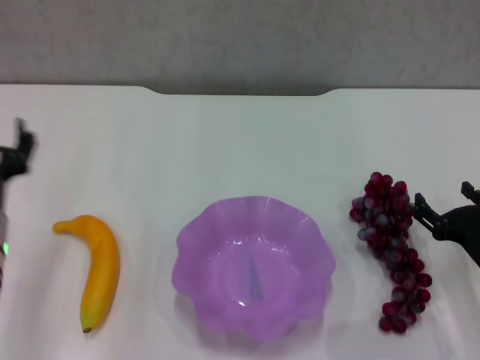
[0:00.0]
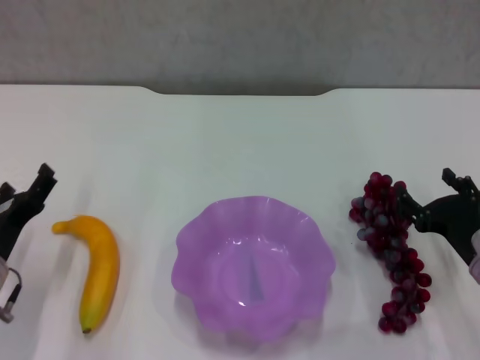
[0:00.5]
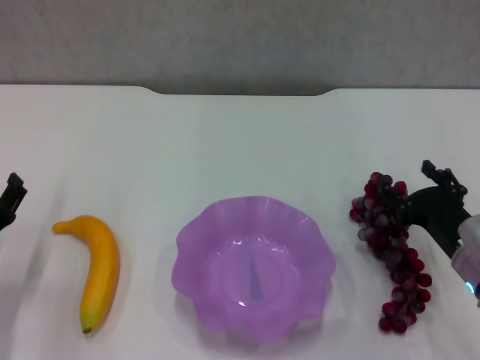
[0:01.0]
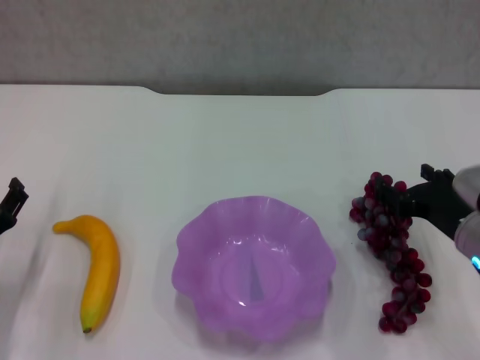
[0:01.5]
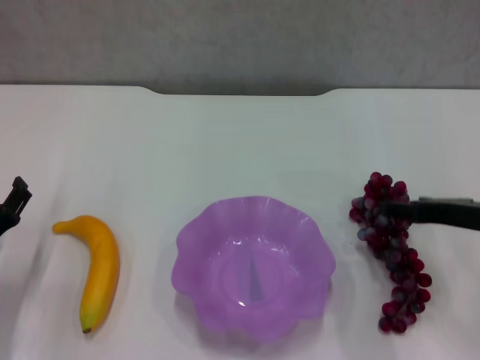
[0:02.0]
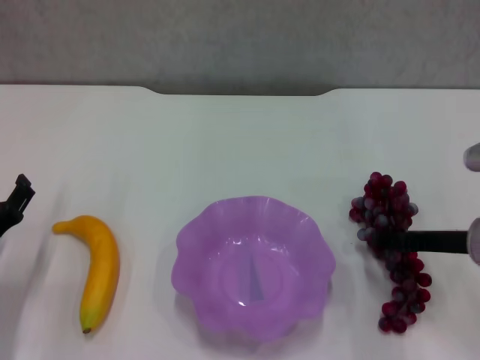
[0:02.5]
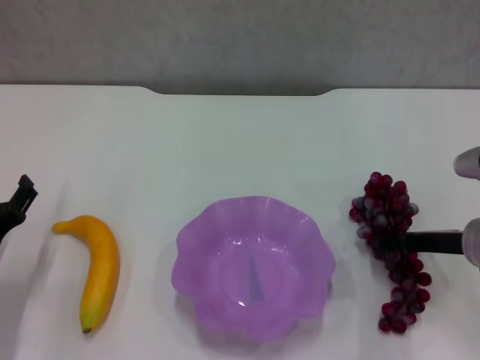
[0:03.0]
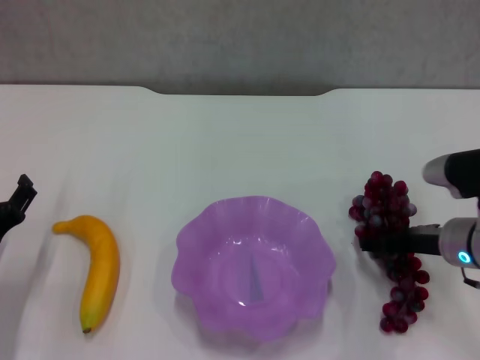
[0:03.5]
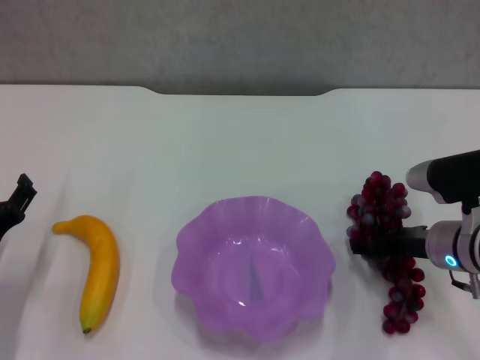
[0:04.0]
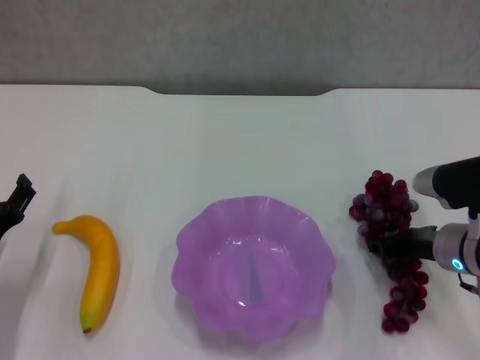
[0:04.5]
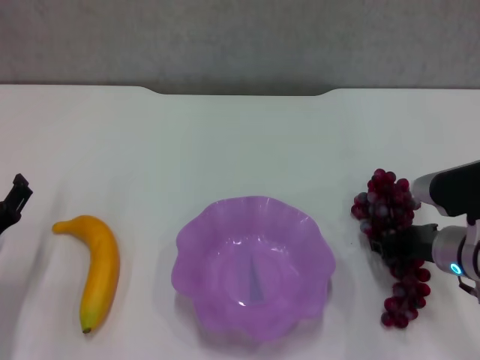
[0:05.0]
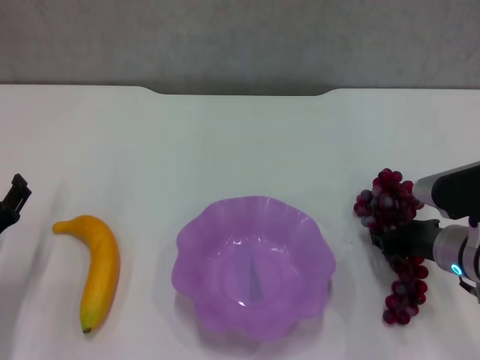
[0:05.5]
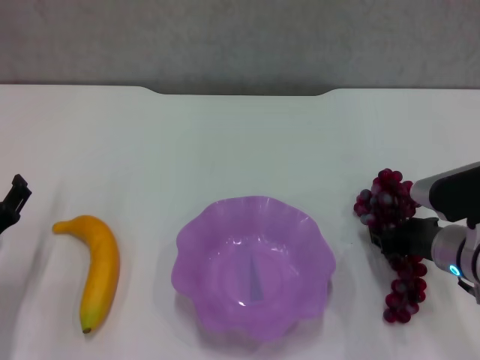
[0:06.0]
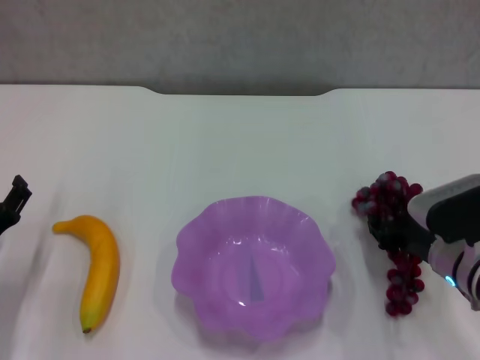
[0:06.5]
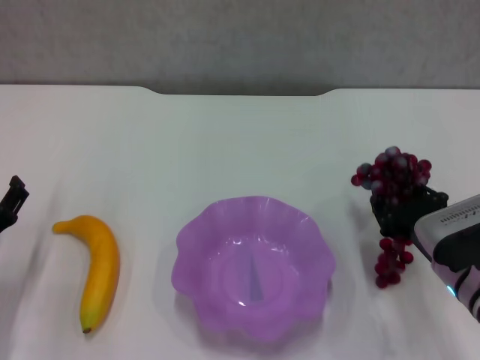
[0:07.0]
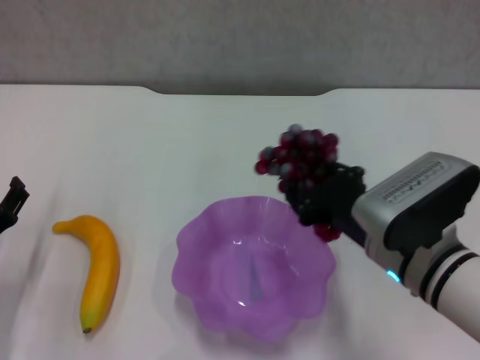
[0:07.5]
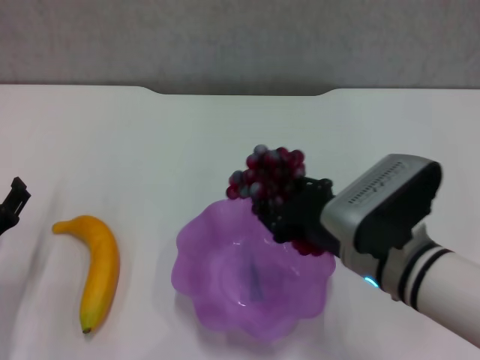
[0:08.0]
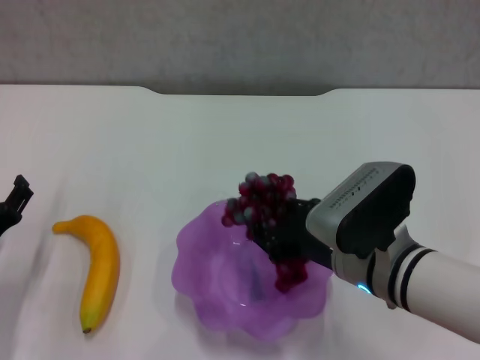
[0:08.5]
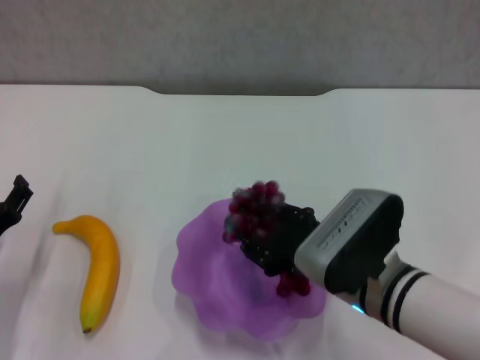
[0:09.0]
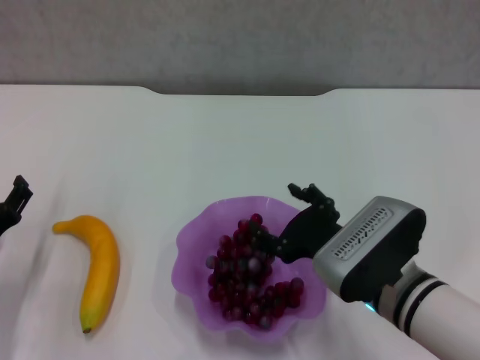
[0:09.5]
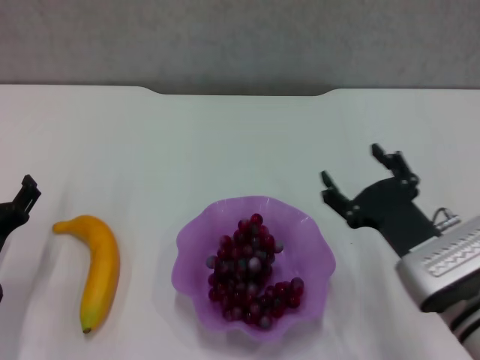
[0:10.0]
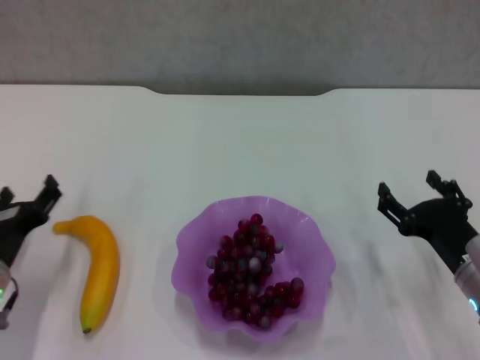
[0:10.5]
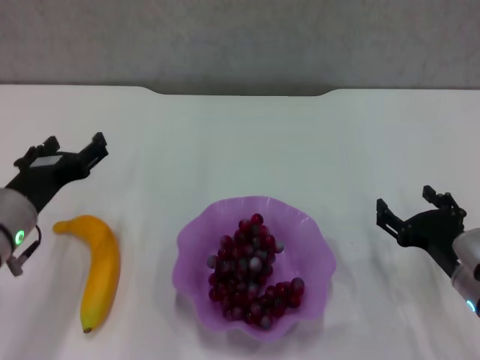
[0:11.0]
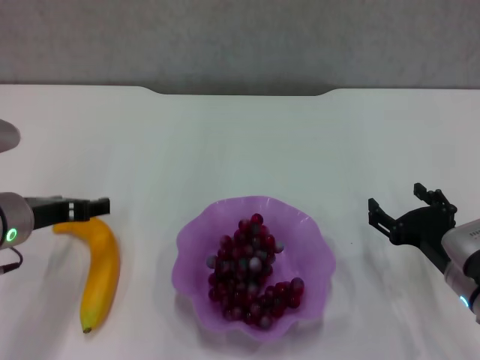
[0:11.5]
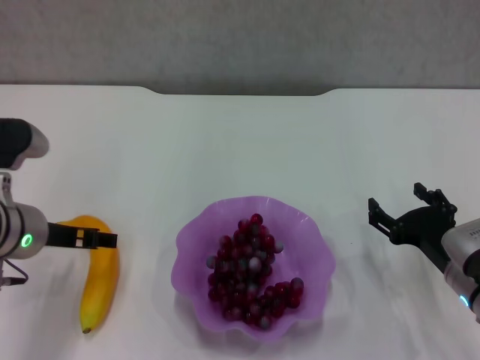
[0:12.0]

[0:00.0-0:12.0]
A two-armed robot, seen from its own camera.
Step, 0:00.0 to 0:04.0: Grasp the grape with right gripper.
Step, 0:05.0 to 0:09.5: Place the grape in the purple plate with right gripper.
0:00.0 to 0:02.0: The right gripper travels upward by roughly 10 cm; the left gripper shifts approximately 5 cm downward and to the left.
0:02.0 to 0:04.0: The right gripper heads downward, covering about 5 cm.
0:04.0 to 0:06.0: The right gripper closes its fingers.
0:06.0 to 0:08.0: The right gripper goes some 15 cm to the left, upward and backward.
0:08.0 to 0:10.0: The right gripper travels to the right and downward by about 10 cm, and opens its fingers.
0:10.0 to 0:12.0: The right gripper travels to the right by approximately 5 cm. Meanwhile the left gripper moves upward, to the right and forward, approximately 15 cm.

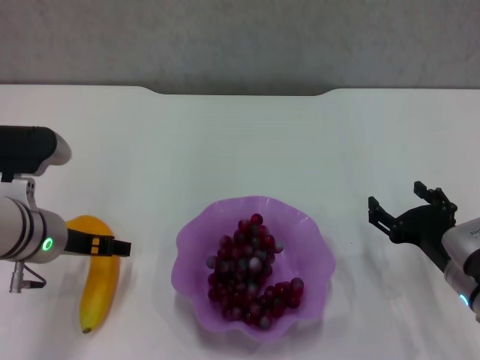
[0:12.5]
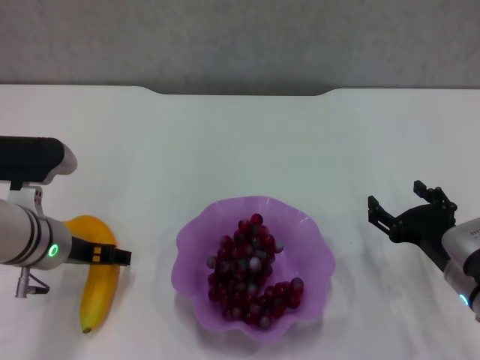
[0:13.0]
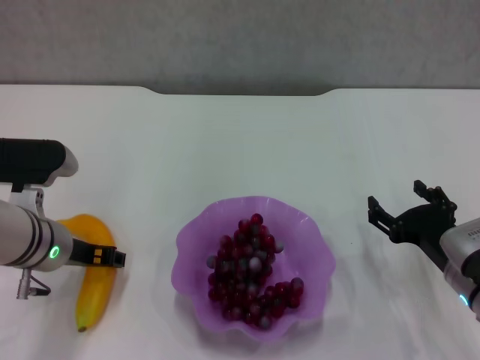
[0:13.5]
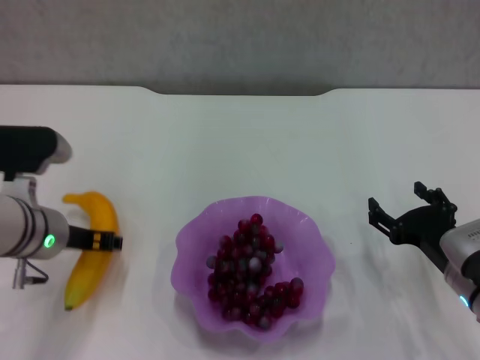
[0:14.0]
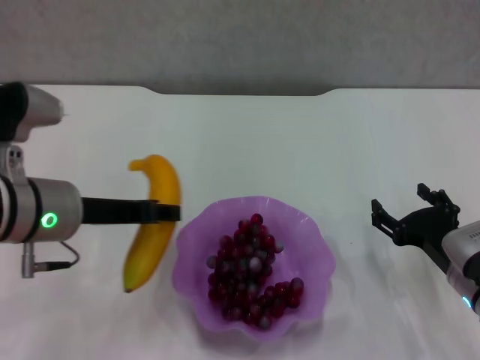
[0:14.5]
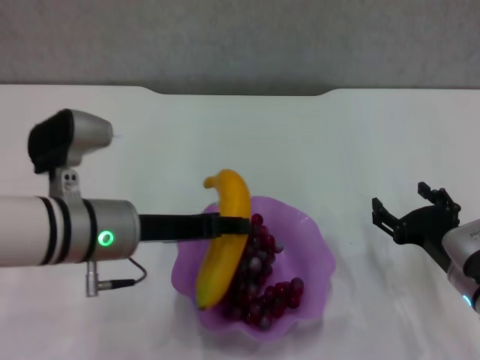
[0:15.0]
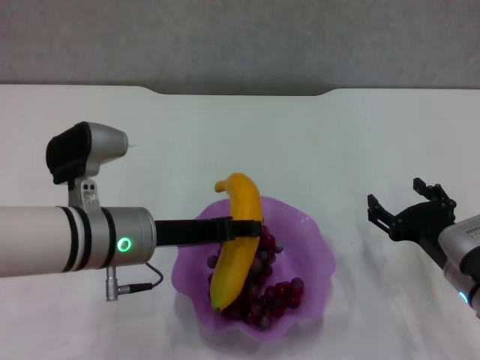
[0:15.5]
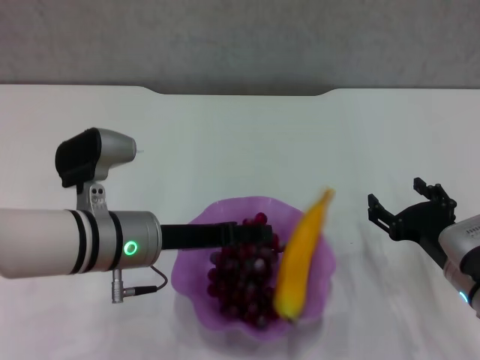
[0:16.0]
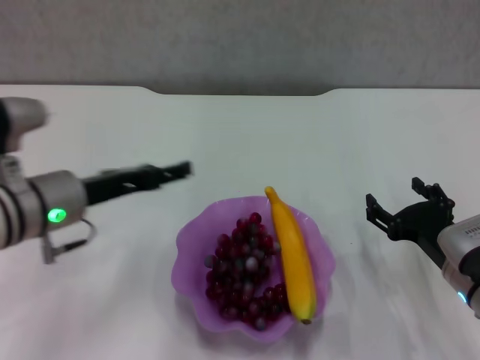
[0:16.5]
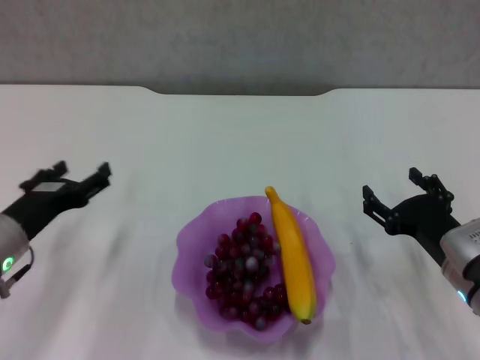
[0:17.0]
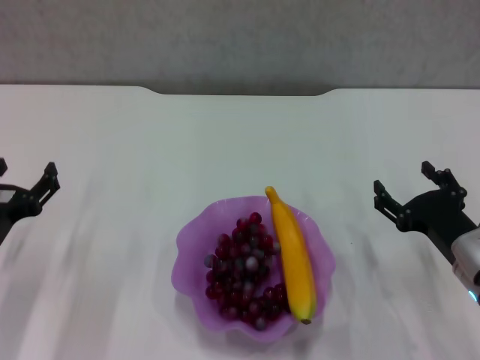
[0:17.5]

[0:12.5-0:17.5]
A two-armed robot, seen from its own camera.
Step, 0:14.0 to 0:16.0: Place the banana in the purple plate with left gripper.
0:12.5 to 0:15.0: The left gripper is displaced to the right by approximately 5 cm, and closes its fingers.
0:15.0 to 0:17.5: The left gripper travels to the left and downward by approximately 15 cm, and opens.
